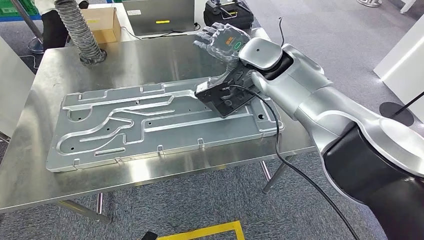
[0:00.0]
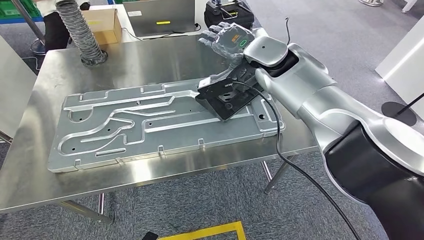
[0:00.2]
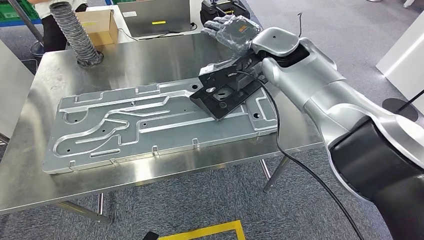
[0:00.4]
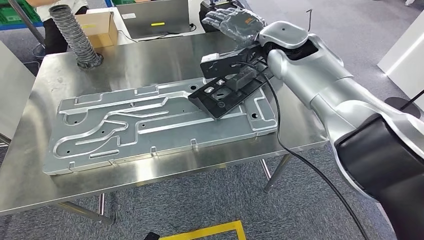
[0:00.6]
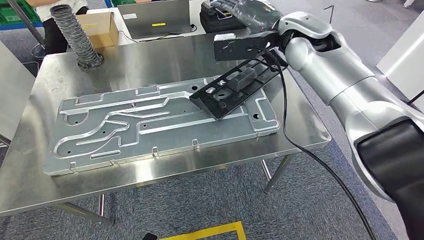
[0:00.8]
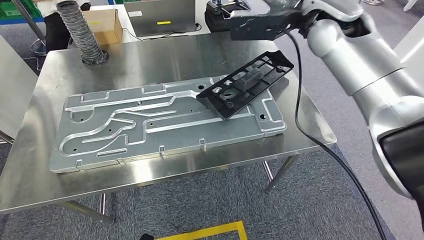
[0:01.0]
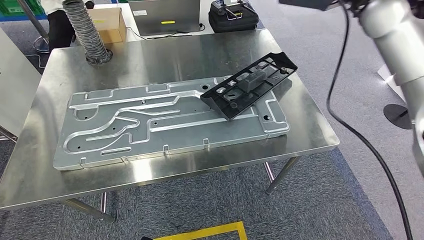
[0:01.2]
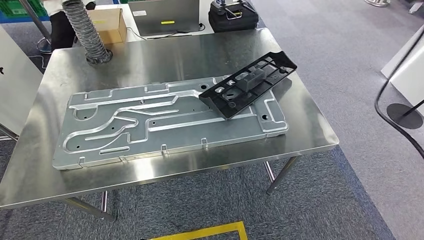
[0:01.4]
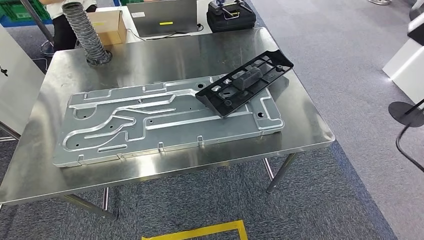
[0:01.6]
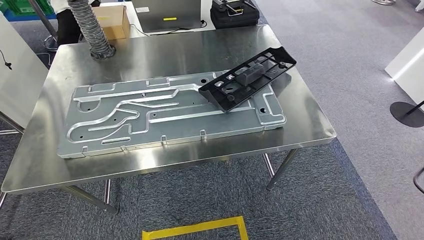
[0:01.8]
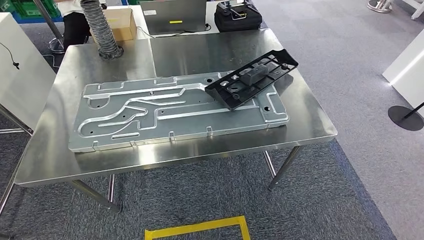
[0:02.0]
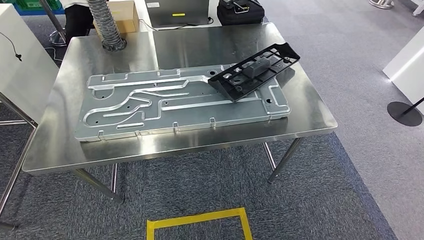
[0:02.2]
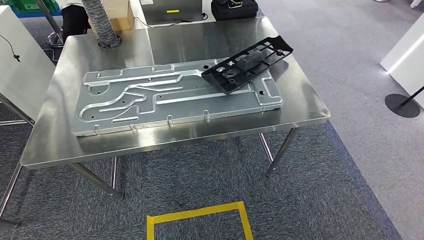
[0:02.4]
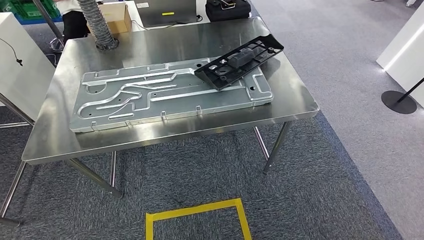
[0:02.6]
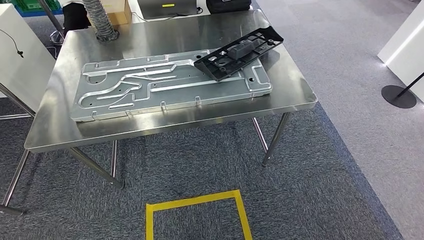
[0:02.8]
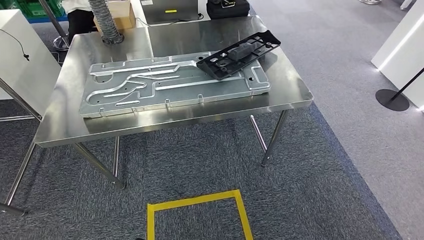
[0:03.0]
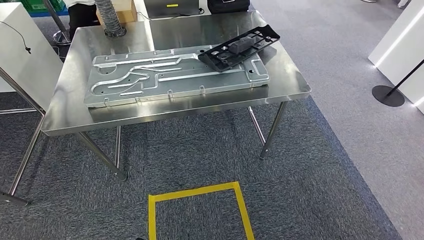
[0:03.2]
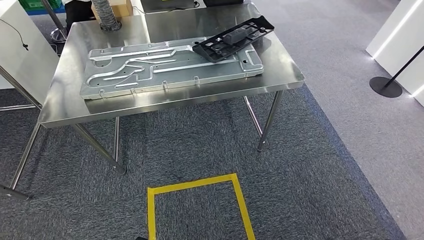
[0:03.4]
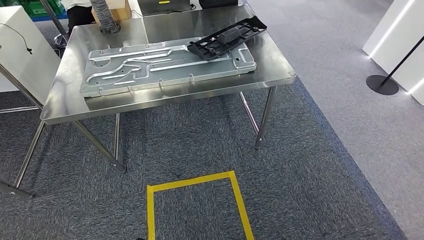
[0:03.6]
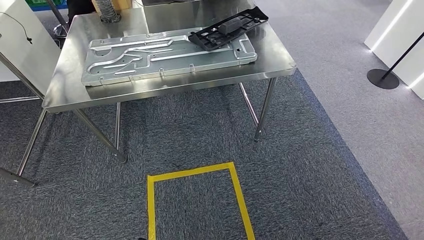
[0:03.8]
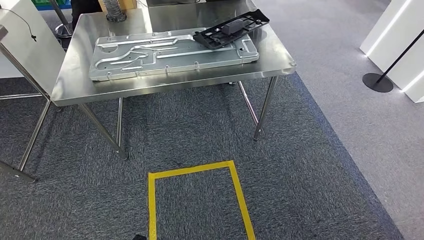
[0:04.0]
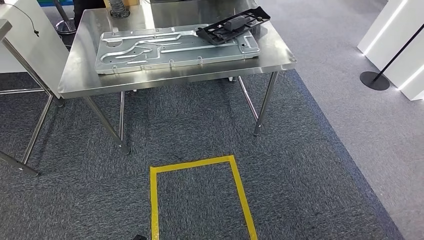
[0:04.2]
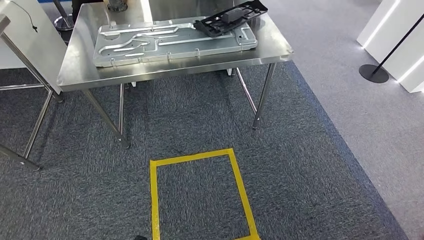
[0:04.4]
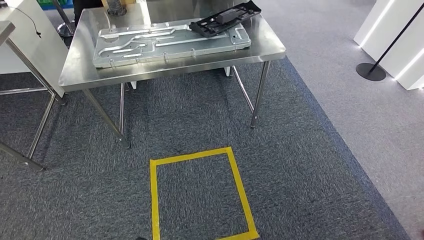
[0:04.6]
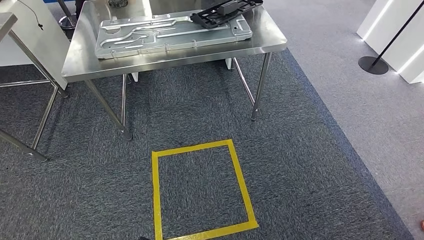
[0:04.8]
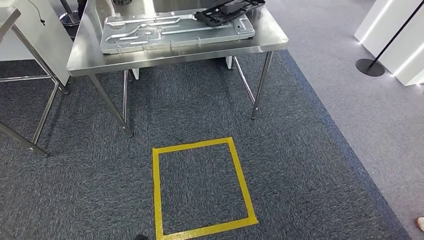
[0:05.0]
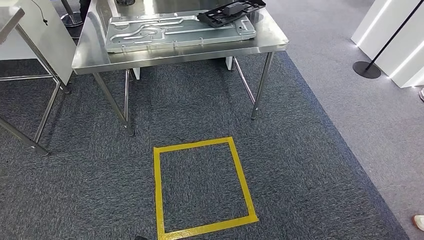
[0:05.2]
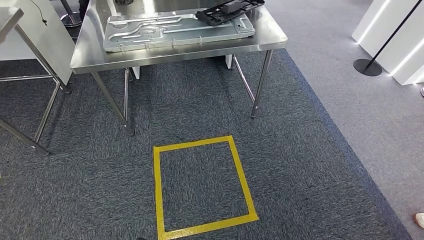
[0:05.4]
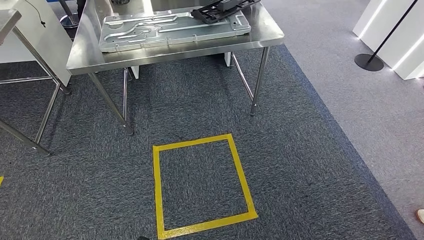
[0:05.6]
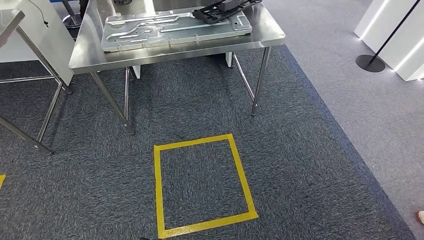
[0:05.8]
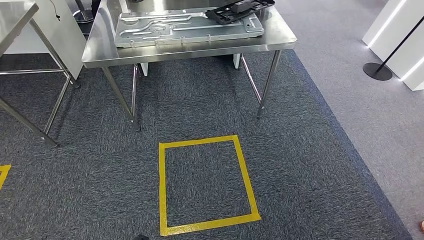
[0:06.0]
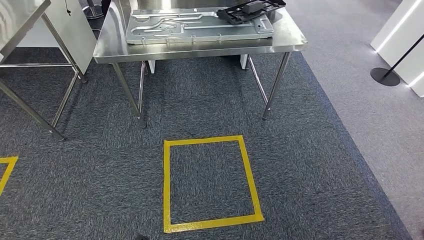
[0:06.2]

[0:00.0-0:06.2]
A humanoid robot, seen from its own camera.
Step, 0:01.6 to 0:06.2: Move to the initial position of the shelf.
